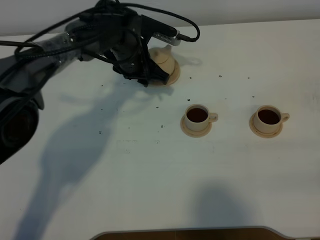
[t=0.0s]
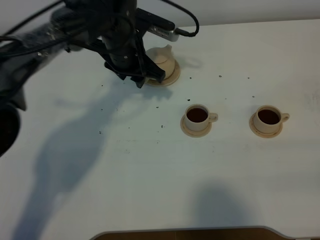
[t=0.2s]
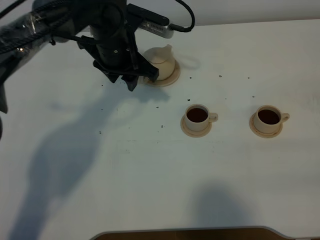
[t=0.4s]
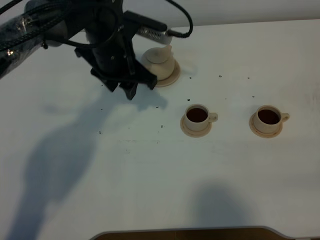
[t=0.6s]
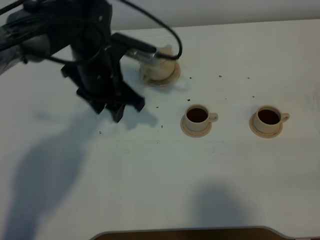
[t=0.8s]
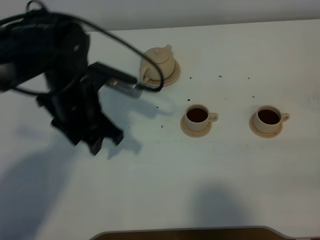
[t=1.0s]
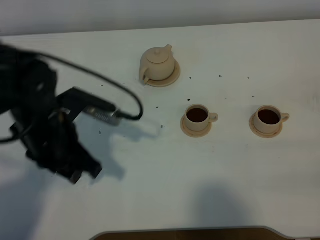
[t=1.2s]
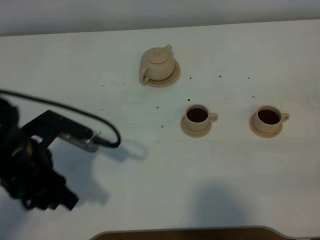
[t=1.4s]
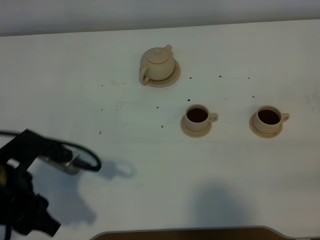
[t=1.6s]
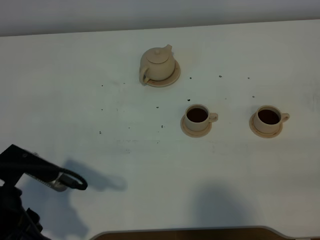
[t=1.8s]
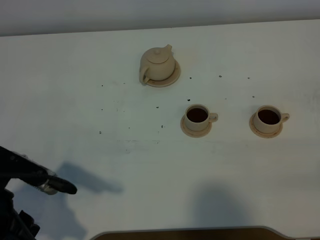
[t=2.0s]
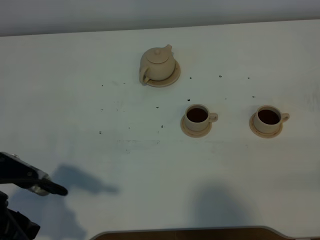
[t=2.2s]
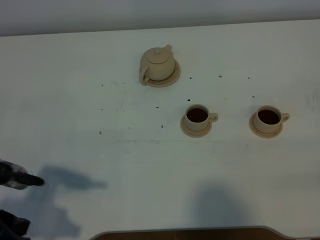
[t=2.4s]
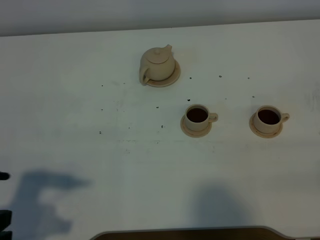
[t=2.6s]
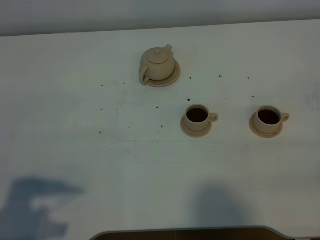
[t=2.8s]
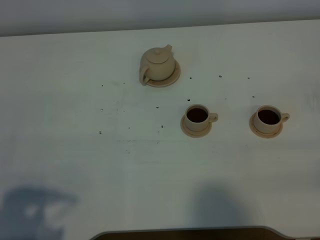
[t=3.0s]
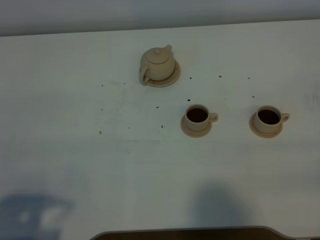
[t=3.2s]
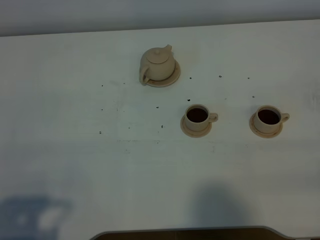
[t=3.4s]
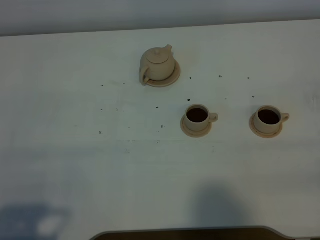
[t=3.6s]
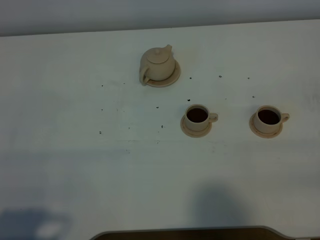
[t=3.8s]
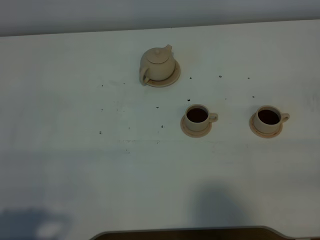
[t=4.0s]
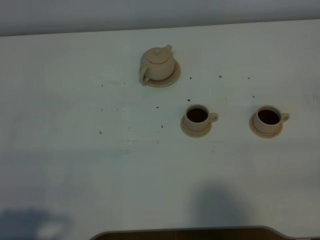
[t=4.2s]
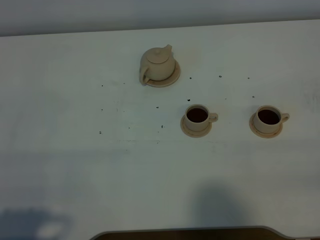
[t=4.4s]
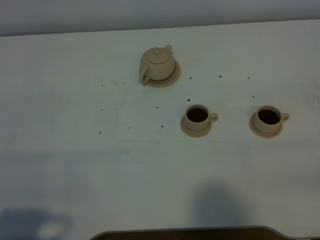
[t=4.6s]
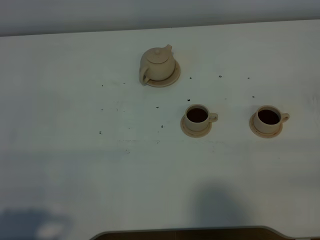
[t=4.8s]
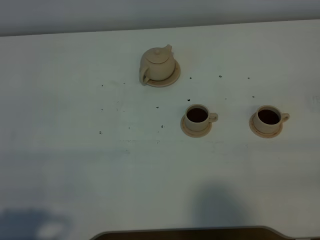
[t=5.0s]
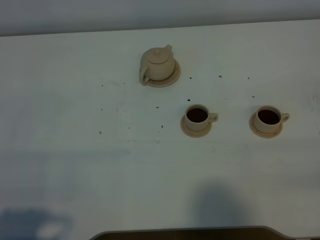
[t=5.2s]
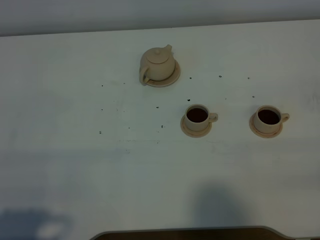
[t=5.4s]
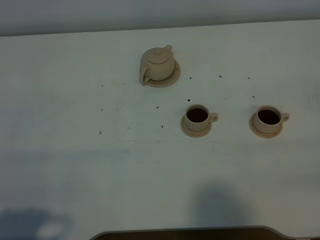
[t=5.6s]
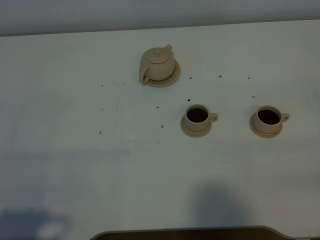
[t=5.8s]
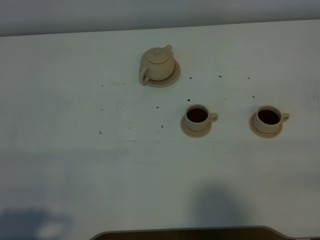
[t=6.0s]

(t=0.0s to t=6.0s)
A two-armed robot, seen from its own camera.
Task of the whole recording: grasp the brown teapot and pour the tea into the two brown teacups one by one, put the brown teapot back in its original place.
t=0.0s - t=1.6s: The left gripper moves backward and to the left, roughly 35 cm.
t=1.6s - t=3.0s: The left gripper shifts about 15 cm backward and to the left.
t=3.0s - t=4.4s: There are only small adjustments of the grippers.
t=4.4s - t=6.0s: Both grippers stay about where they are.
